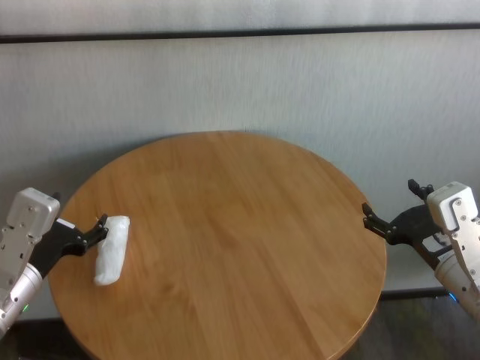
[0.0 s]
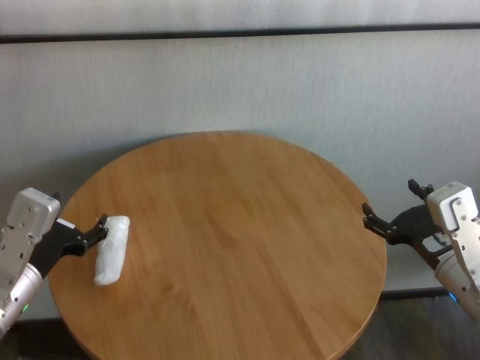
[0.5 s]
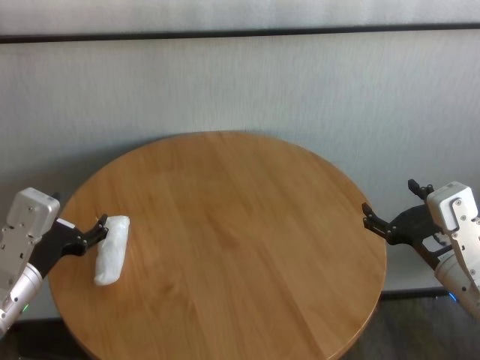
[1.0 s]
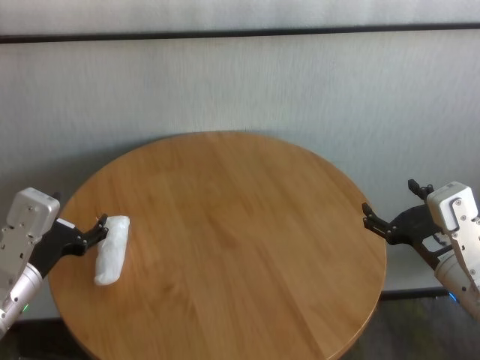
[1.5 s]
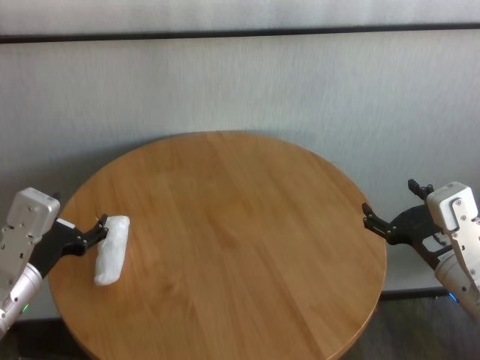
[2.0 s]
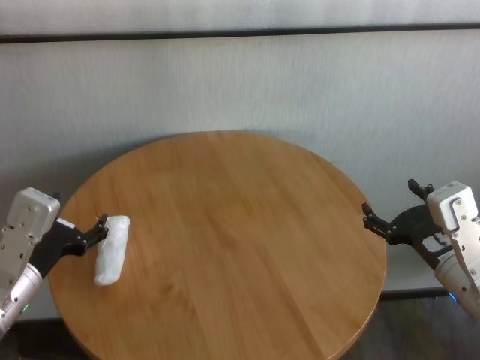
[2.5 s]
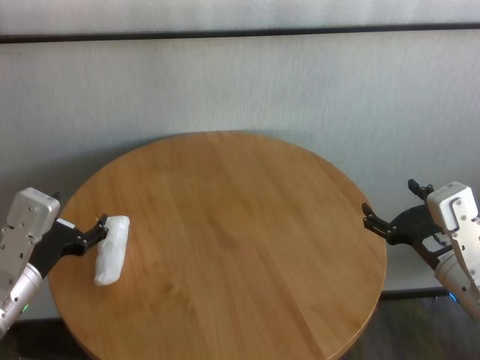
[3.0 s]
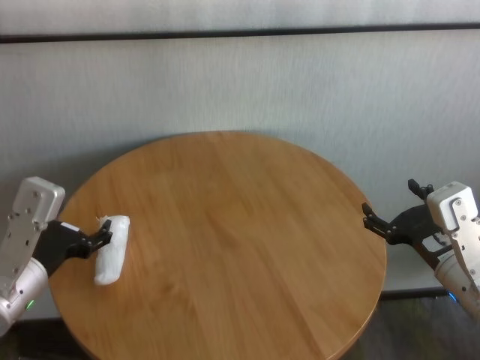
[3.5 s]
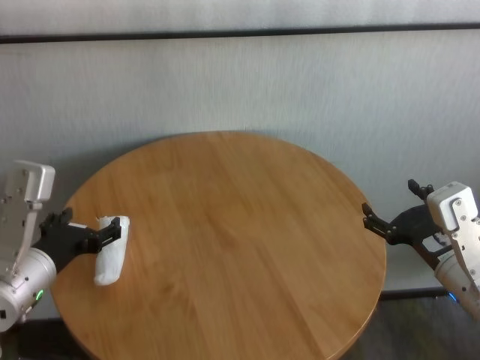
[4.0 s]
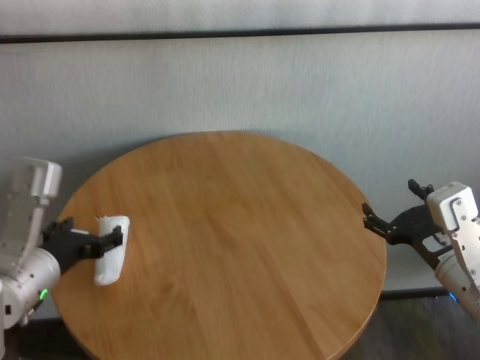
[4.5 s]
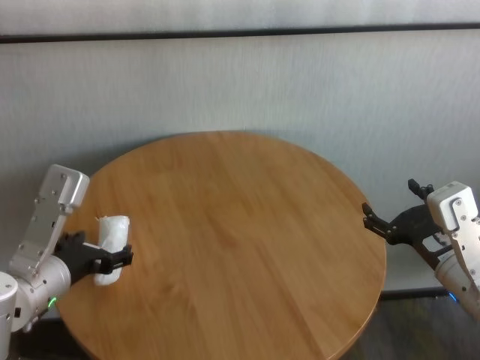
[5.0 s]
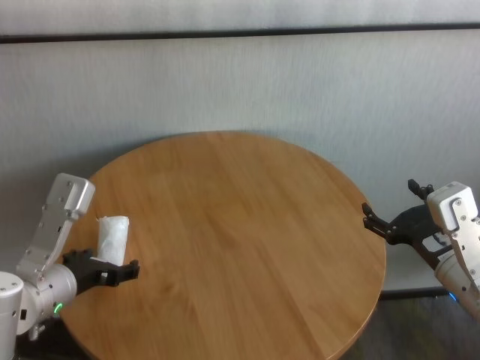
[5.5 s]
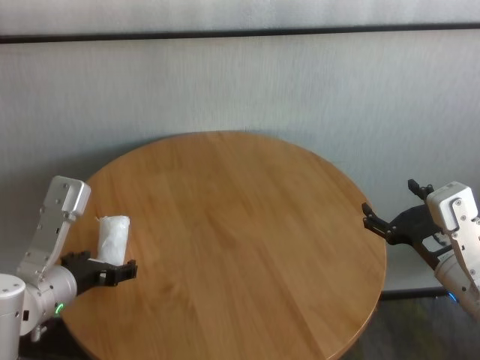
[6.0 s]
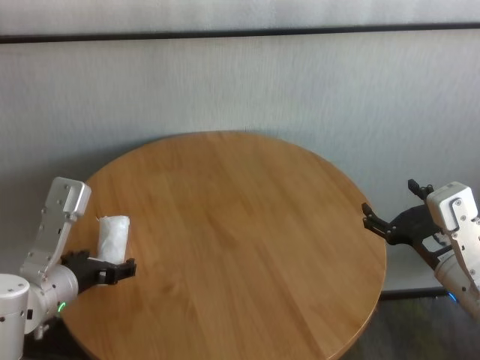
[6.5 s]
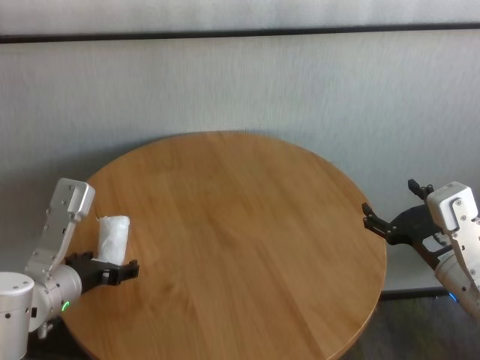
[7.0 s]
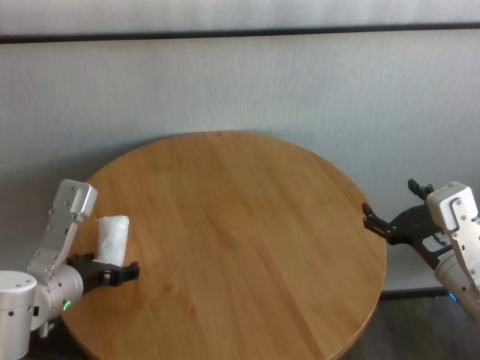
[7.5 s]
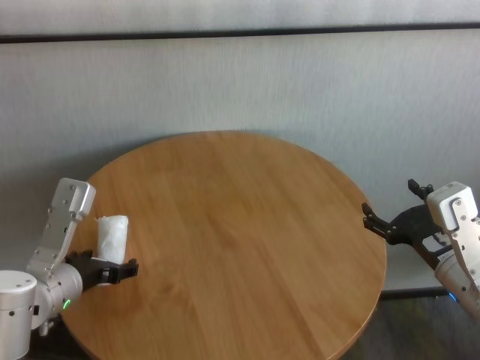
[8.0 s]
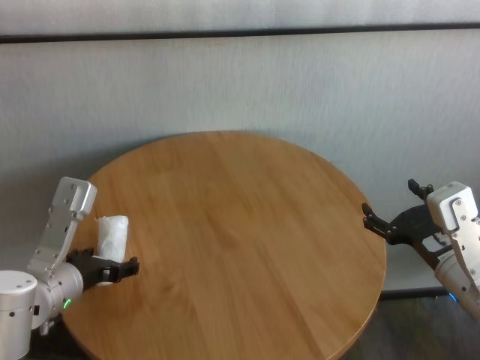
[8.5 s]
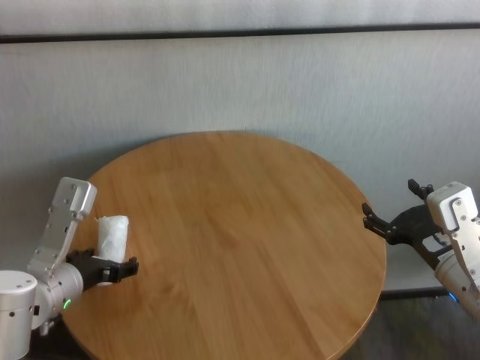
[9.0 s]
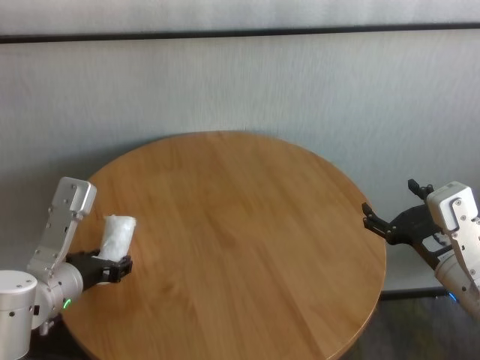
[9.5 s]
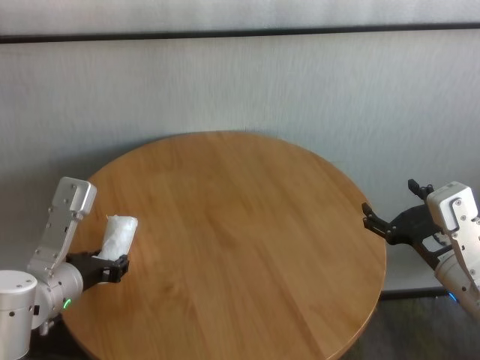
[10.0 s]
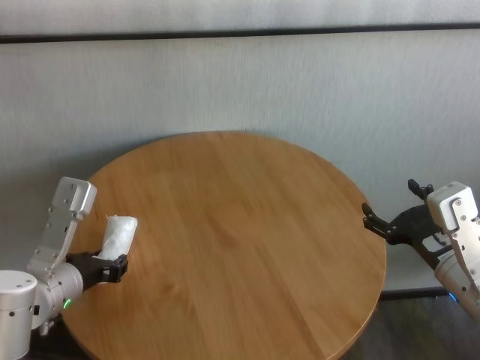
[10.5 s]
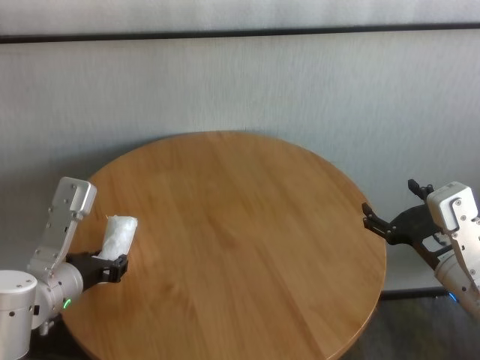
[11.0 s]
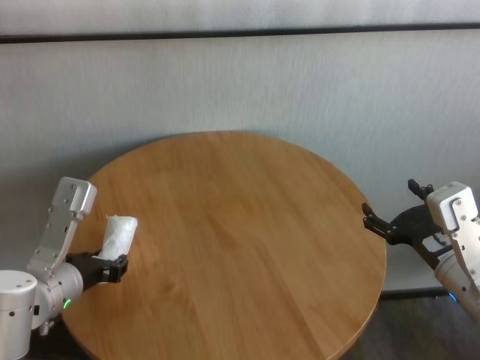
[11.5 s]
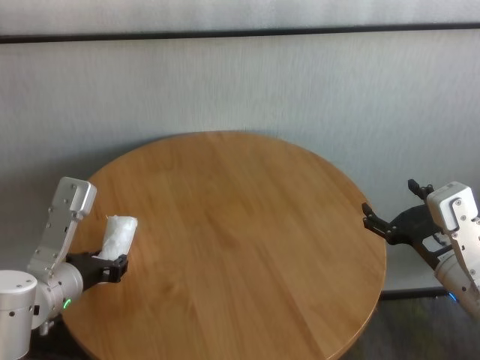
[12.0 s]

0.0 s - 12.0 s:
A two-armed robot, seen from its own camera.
Task of the whole recording: One hand took the sandbag from the other hand and placed it on the table.
Step, 0.0 s - 11.5 s: Grasp the paper ball with left gripper.

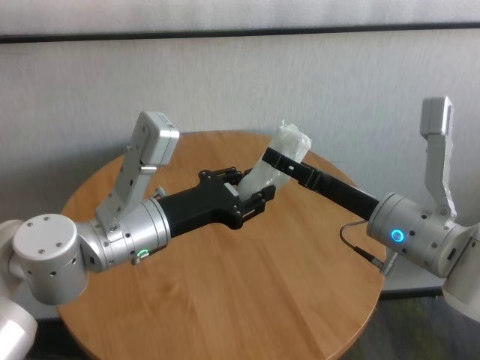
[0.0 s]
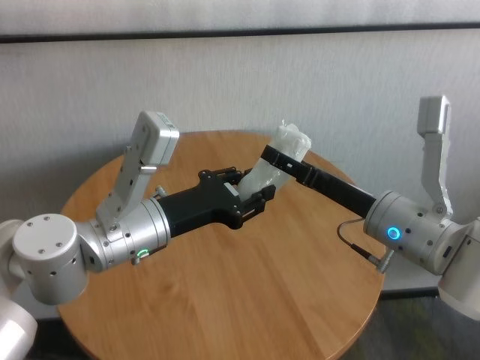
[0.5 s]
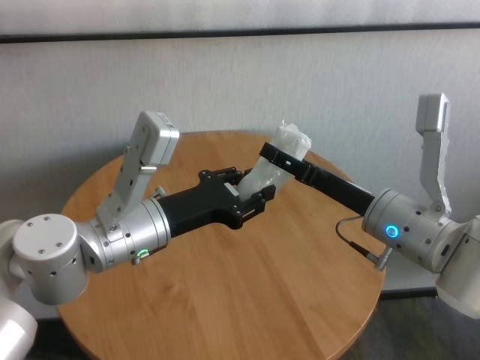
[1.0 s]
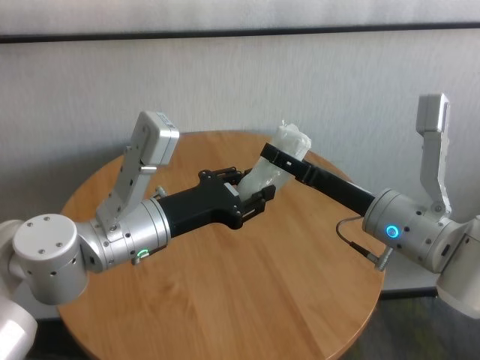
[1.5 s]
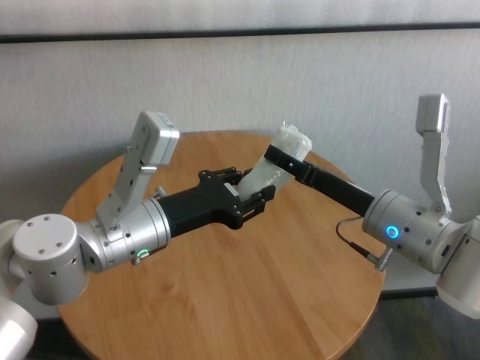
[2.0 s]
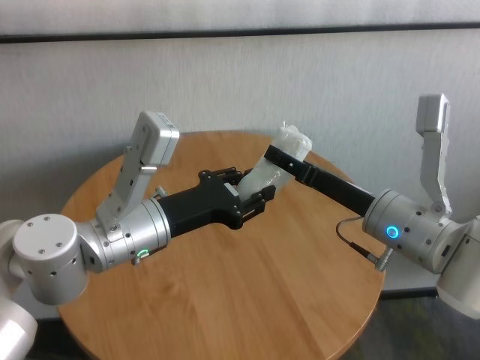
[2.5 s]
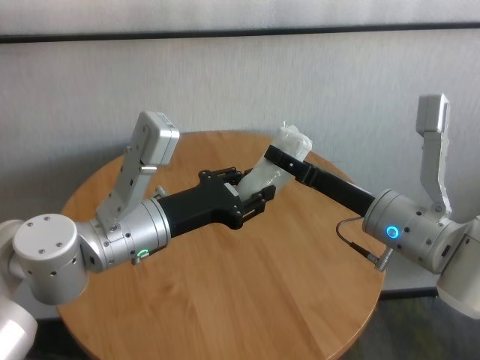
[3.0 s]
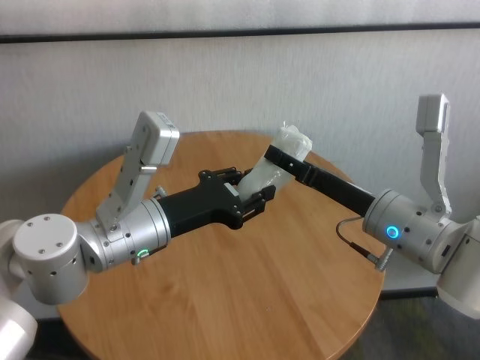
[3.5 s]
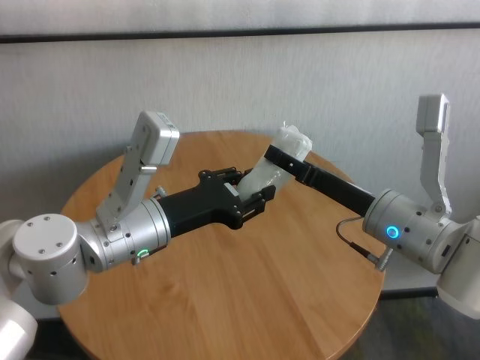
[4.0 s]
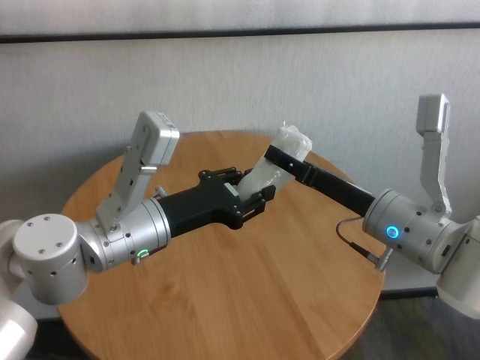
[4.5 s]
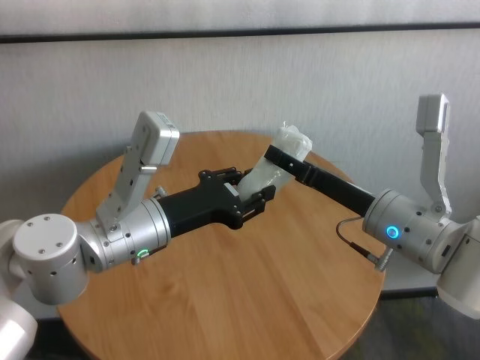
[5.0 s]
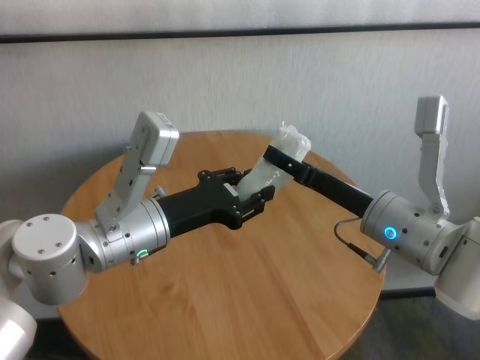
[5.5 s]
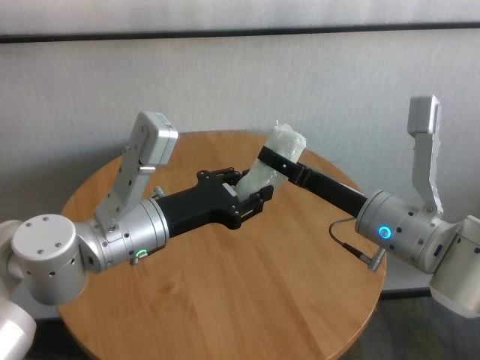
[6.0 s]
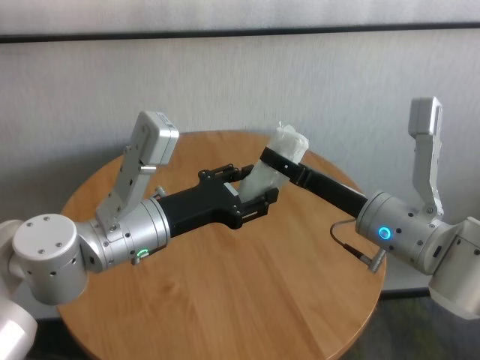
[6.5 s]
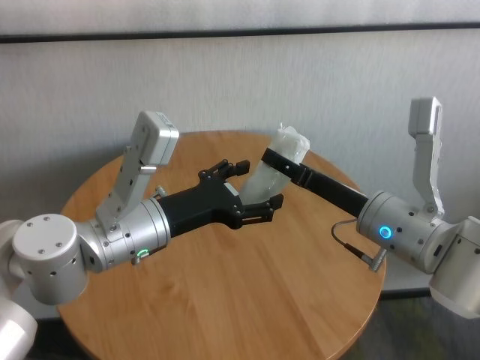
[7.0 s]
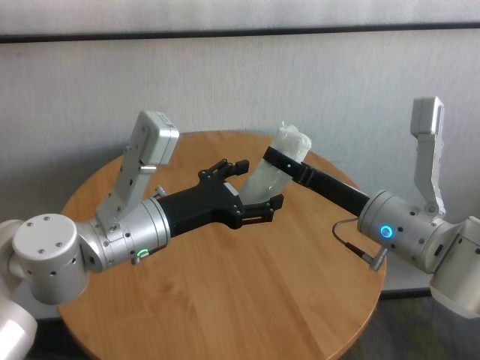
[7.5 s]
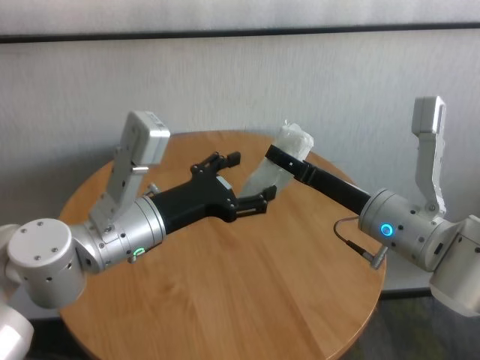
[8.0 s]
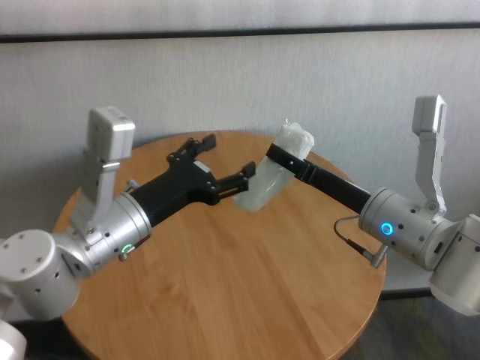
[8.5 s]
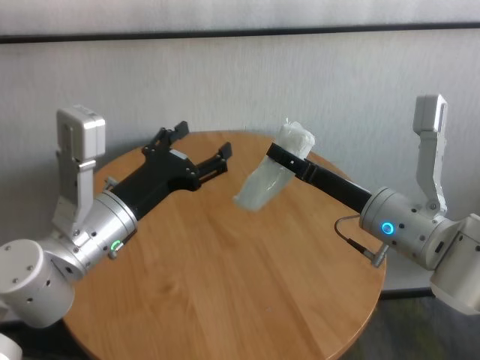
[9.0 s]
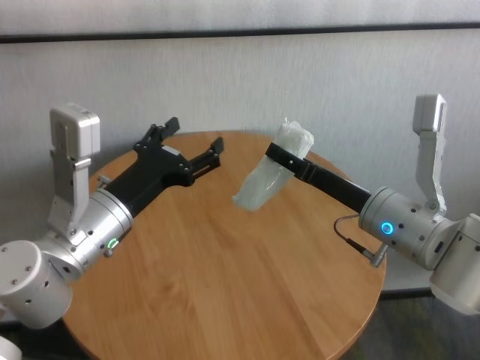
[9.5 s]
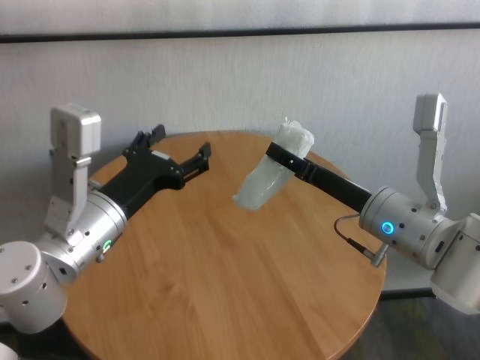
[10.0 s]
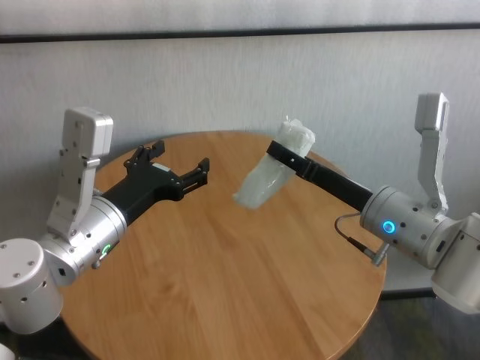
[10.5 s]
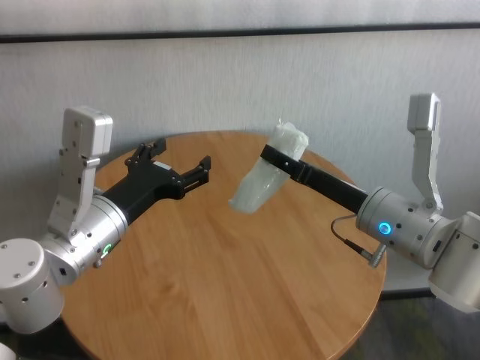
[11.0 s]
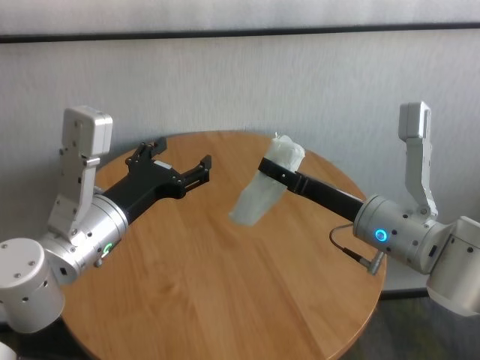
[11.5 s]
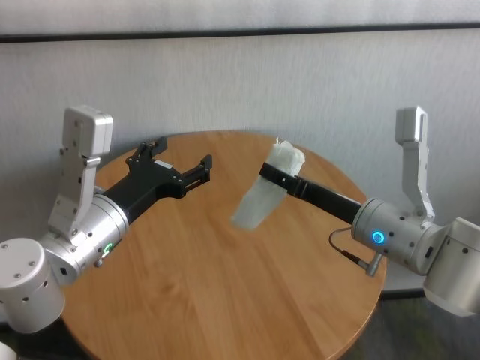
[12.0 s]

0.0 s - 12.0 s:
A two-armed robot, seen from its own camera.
Task of the whole recording: One hand took the sandbag from the other hand and placed it on the table.
Step, 0.0 s - 7.5 s: Pass the paper ball to the right gripper.

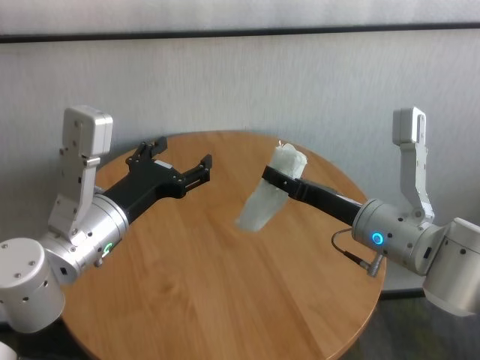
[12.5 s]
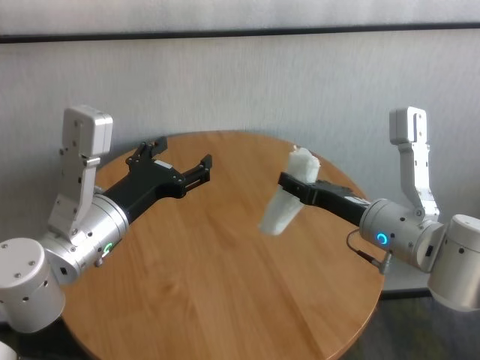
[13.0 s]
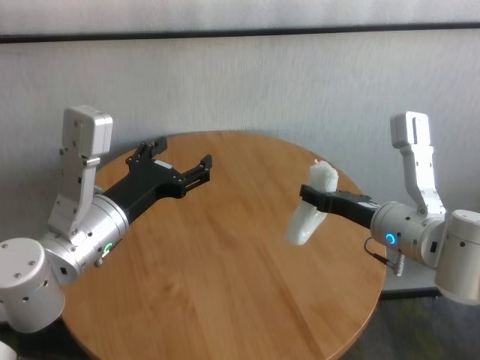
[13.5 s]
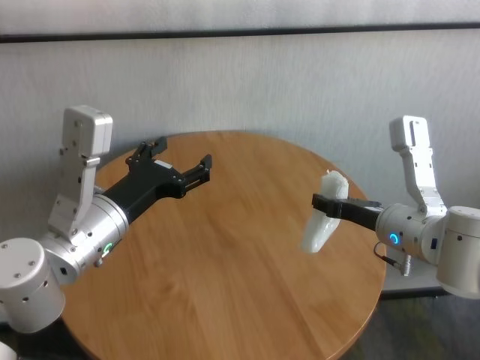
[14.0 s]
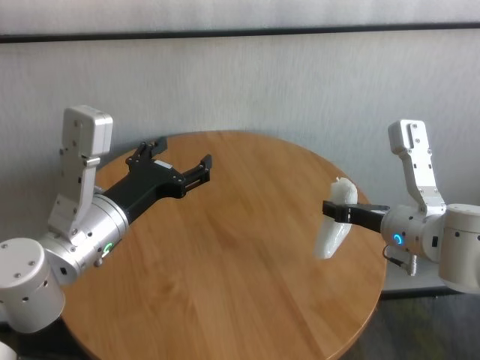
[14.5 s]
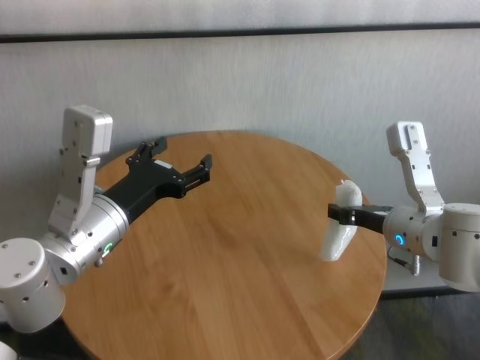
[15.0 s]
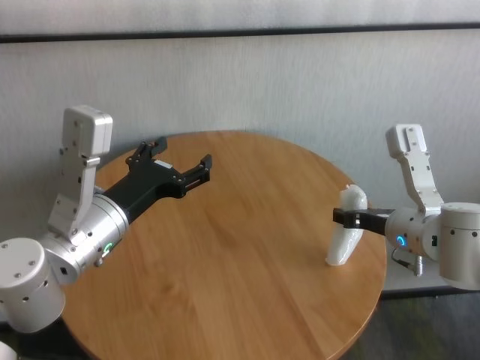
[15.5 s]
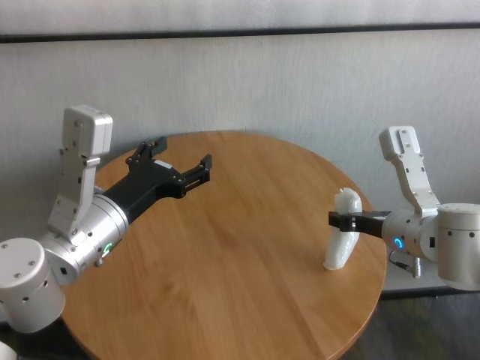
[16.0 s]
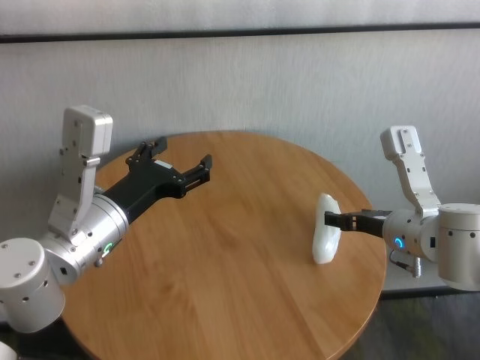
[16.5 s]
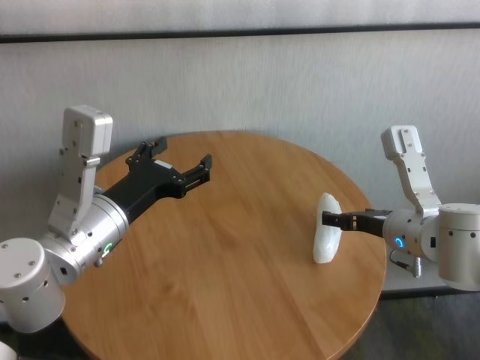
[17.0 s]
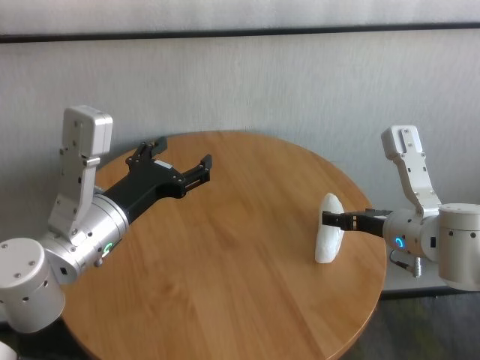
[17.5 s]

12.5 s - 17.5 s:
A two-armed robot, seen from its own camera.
Task of the whole recording: One hand took the sandbag from the other hand and placed it on the table.
Step, 12.5 s - 16.0 s: Place the paper ball on the table with right gripper.
